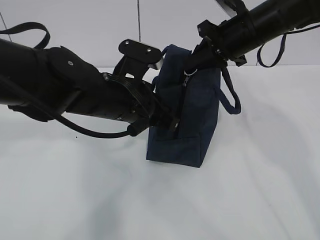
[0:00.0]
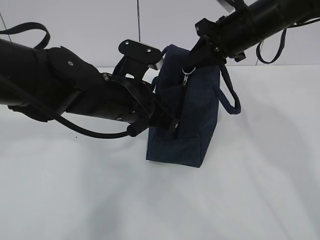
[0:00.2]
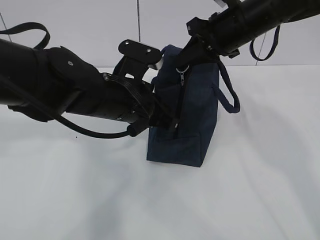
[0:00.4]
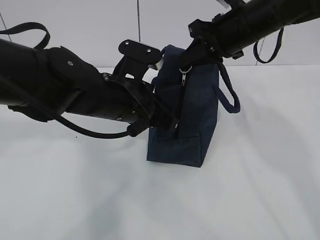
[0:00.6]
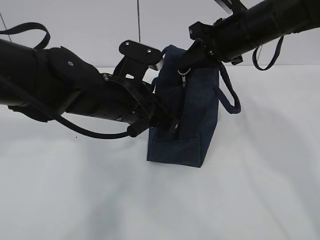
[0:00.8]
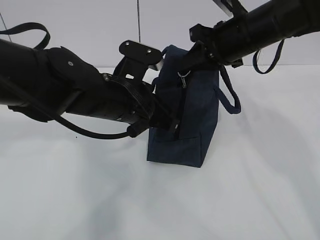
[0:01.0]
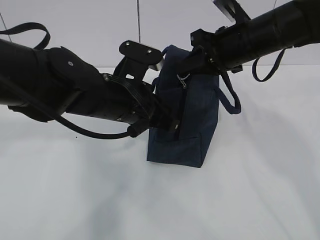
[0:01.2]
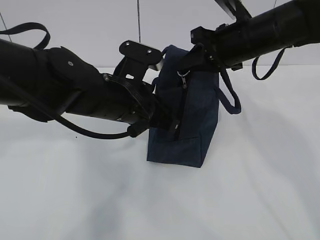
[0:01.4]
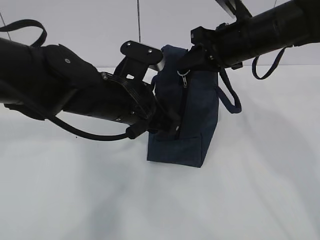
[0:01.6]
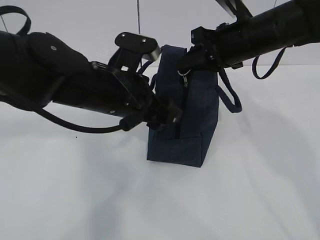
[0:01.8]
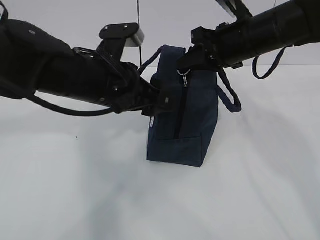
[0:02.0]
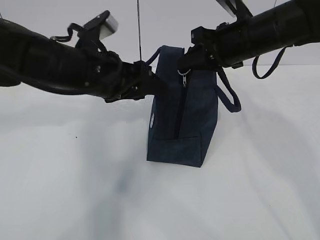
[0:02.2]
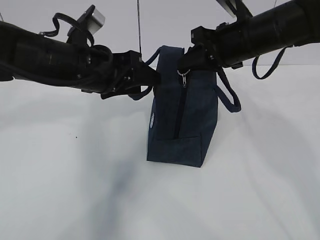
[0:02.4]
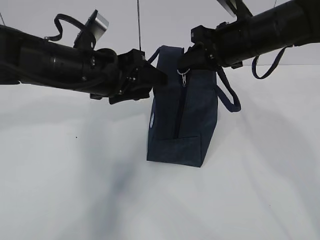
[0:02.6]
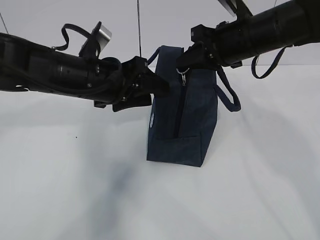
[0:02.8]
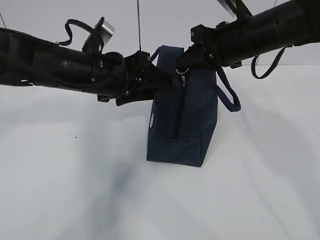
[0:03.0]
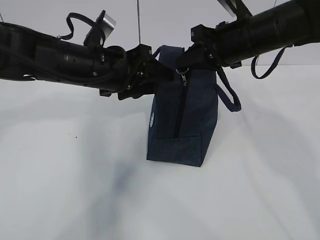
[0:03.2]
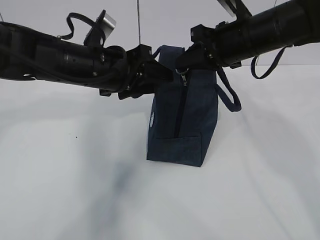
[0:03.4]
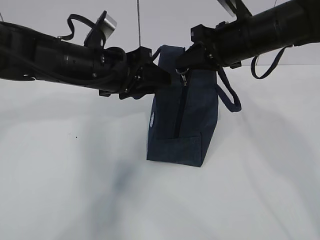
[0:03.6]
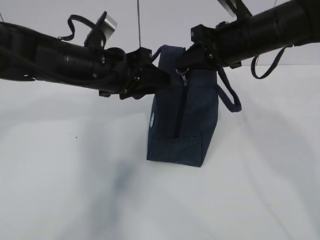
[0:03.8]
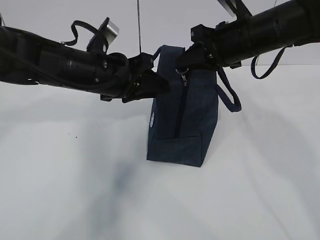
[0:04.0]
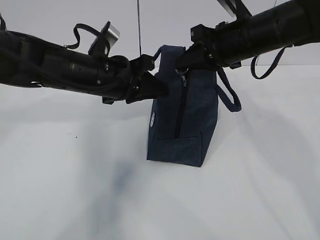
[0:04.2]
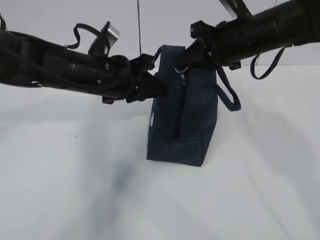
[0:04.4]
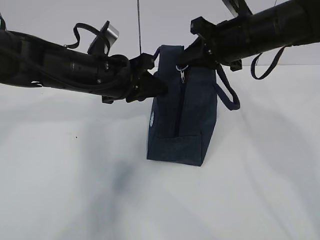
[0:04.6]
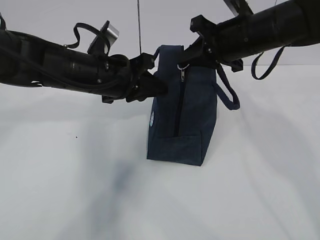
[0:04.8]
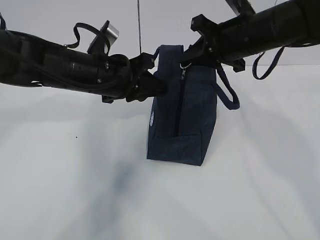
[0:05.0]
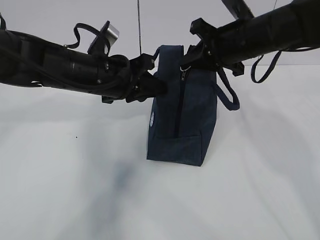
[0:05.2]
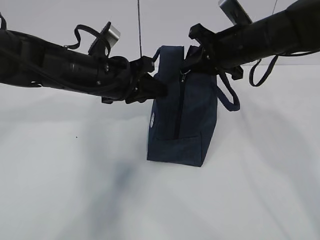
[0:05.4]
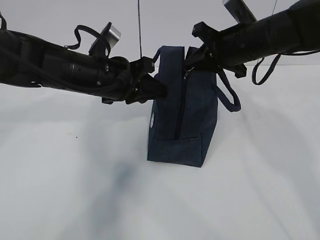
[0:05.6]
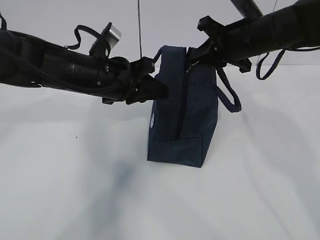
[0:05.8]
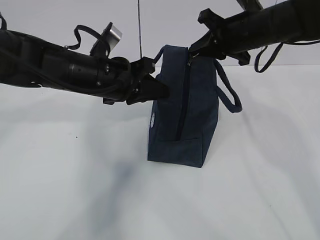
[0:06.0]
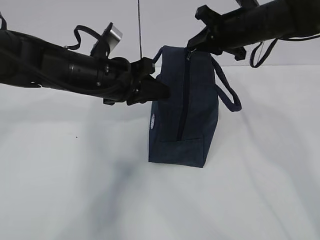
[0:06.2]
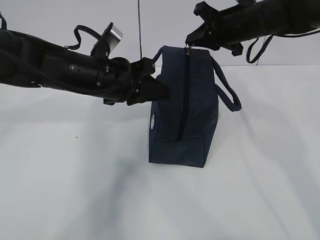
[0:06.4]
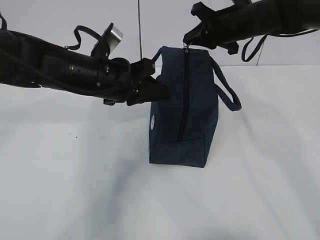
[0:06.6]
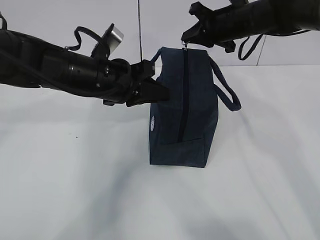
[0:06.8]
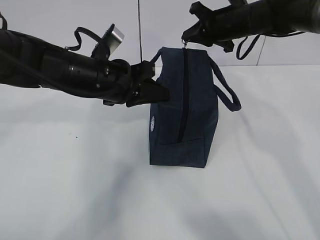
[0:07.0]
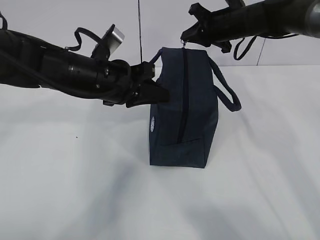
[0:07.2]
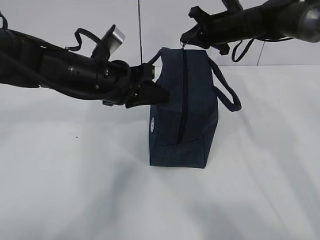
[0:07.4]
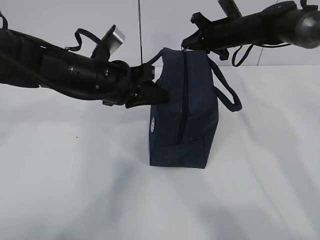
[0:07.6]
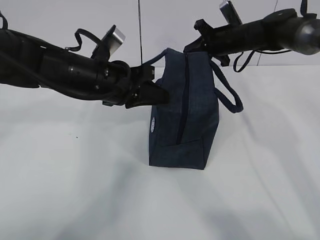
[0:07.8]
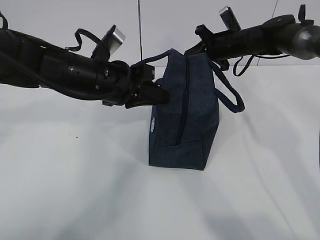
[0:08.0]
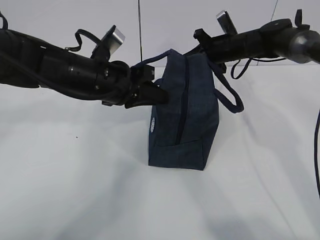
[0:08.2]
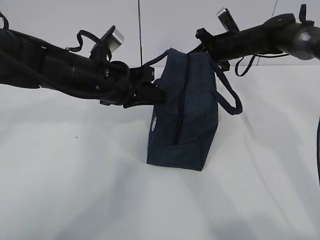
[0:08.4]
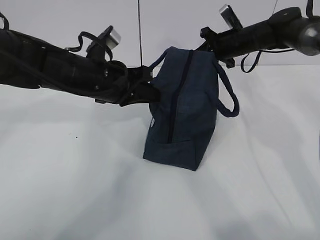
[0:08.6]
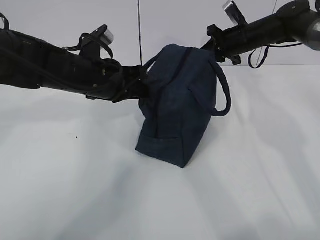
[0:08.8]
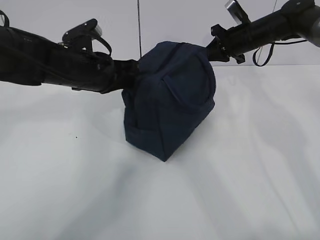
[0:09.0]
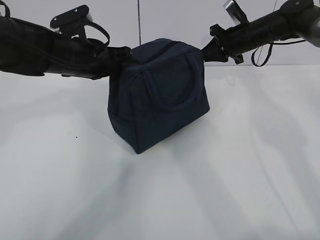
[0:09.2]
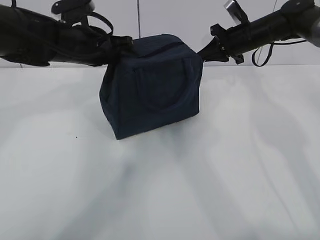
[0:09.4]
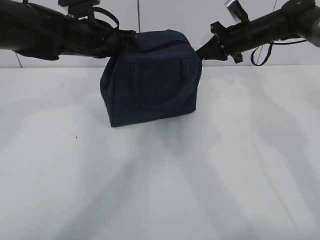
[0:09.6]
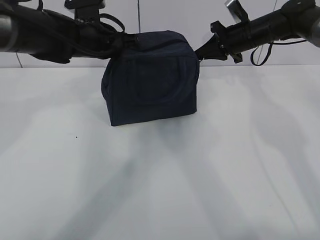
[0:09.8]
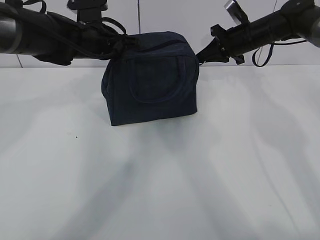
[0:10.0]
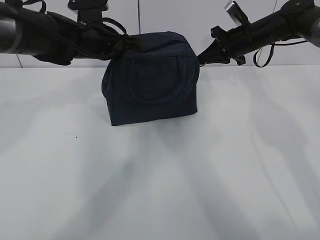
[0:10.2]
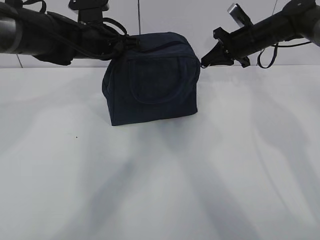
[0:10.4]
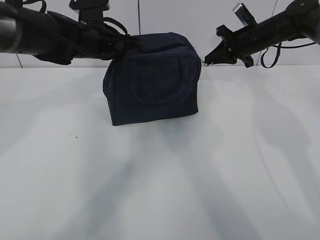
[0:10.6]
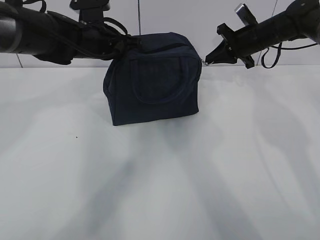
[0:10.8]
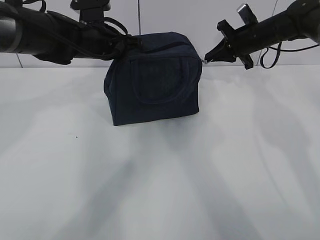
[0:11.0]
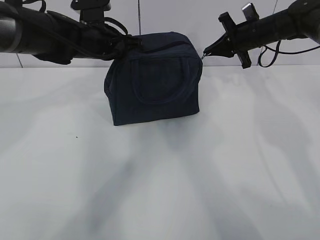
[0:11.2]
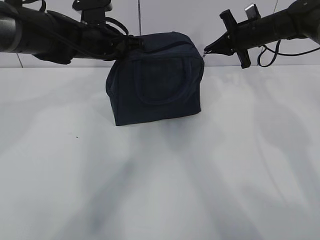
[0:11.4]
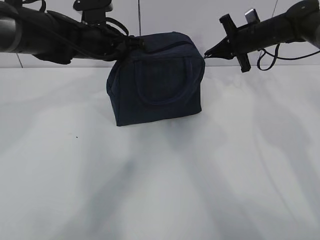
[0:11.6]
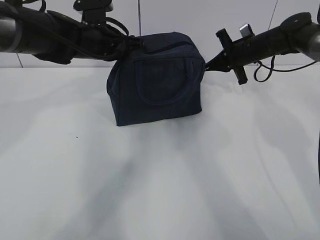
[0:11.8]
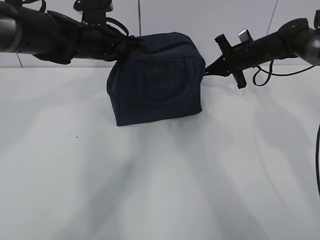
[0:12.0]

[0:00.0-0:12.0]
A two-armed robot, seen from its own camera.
0:00.0 to 0:01.6: The left gripper opens its fingers.
0:01.6 to 0:03.0: The left gripper ends up roughly 5 cm from where it was.
0:03.0 to 0:04.4: The left gripper closes.
0:04.4 to 0:06.0: The right gripper ends up roughly 5 cm from where it was.
0:06.0 to 0:07.6: The right gripper goes approximately 10 cm forward and downward.
0:07.6 to 0:09.0: The left gripper moves approximately 5 cm.
0:09.0 to 0:10.4: The left gripper heads forward, covering some 10 cm.

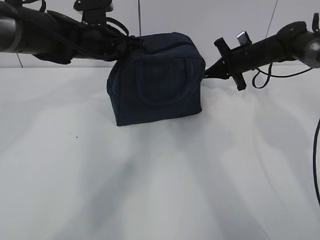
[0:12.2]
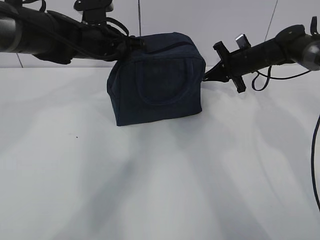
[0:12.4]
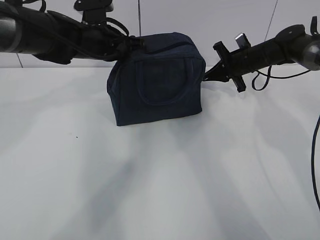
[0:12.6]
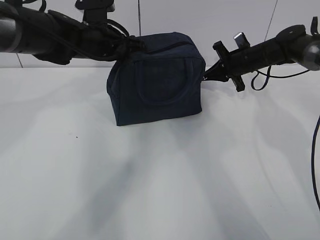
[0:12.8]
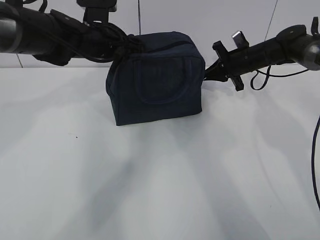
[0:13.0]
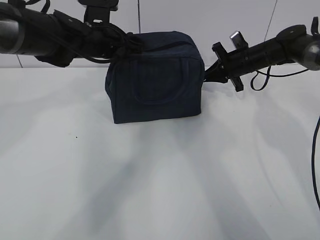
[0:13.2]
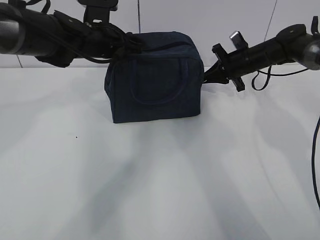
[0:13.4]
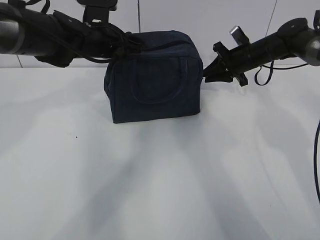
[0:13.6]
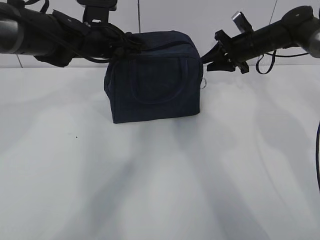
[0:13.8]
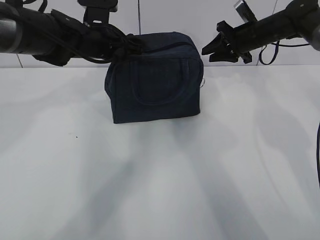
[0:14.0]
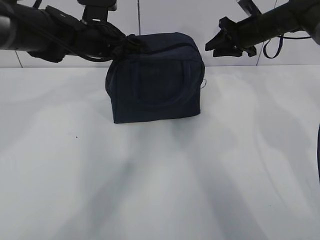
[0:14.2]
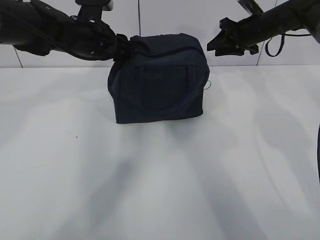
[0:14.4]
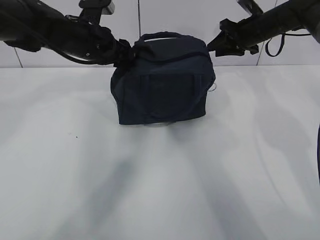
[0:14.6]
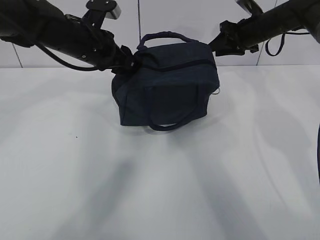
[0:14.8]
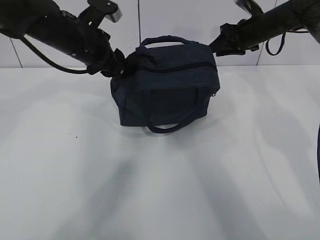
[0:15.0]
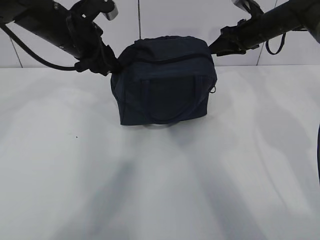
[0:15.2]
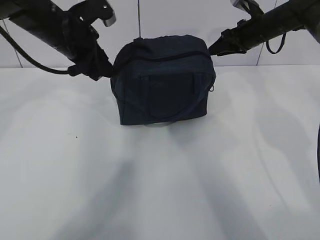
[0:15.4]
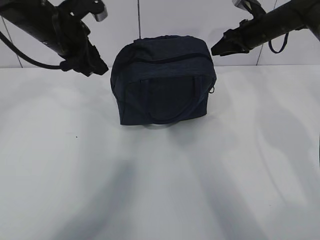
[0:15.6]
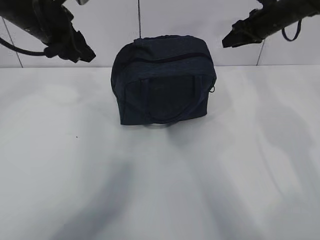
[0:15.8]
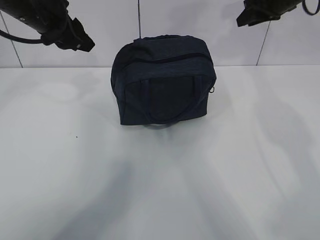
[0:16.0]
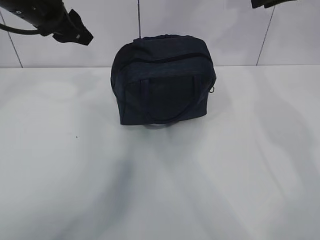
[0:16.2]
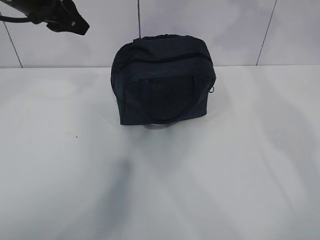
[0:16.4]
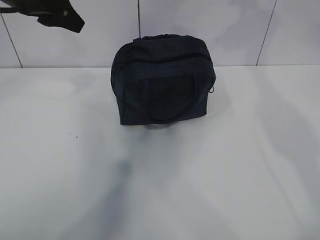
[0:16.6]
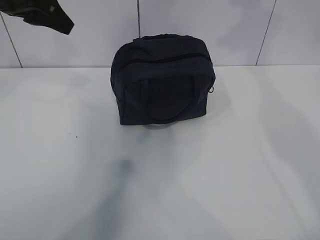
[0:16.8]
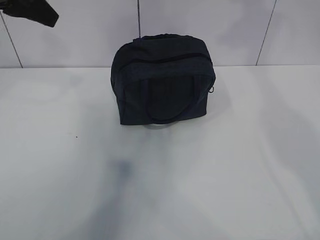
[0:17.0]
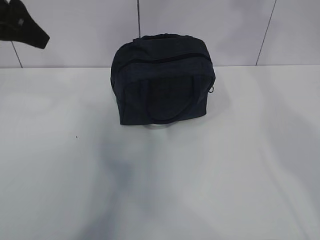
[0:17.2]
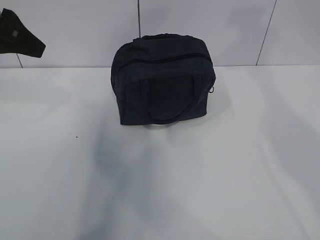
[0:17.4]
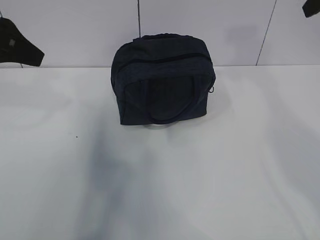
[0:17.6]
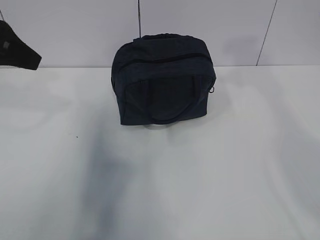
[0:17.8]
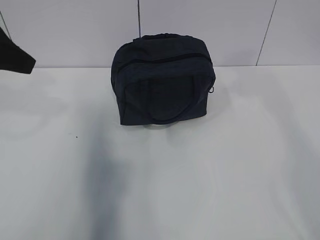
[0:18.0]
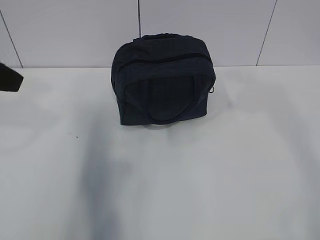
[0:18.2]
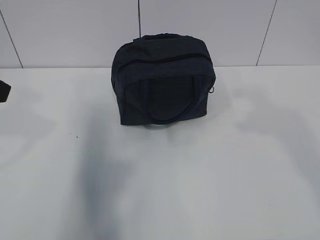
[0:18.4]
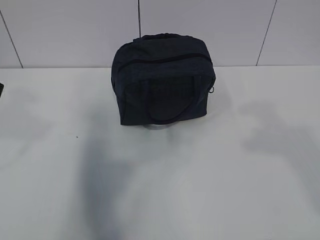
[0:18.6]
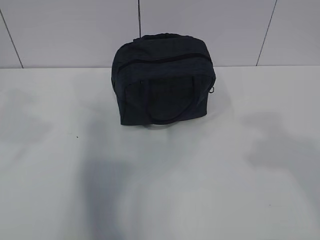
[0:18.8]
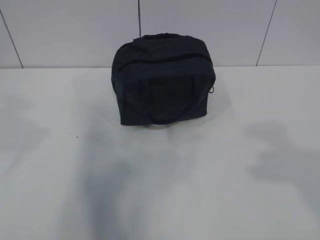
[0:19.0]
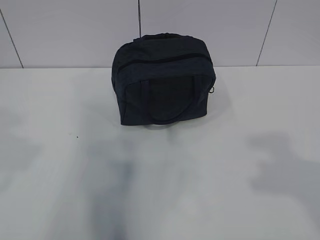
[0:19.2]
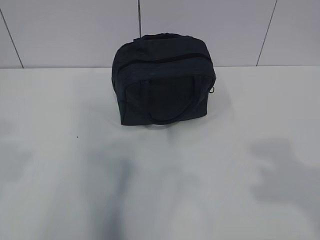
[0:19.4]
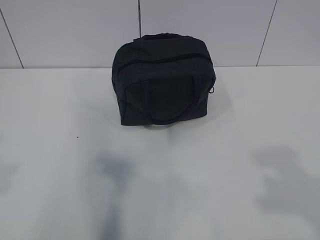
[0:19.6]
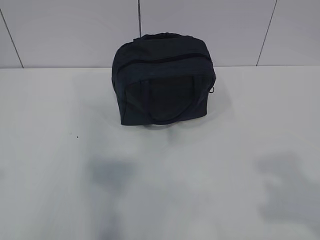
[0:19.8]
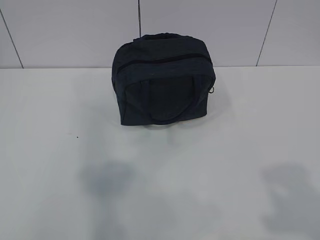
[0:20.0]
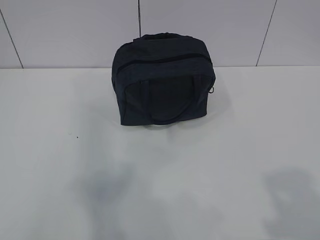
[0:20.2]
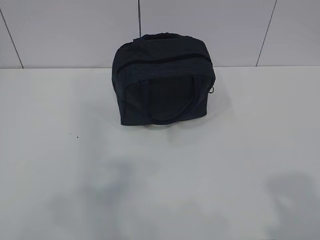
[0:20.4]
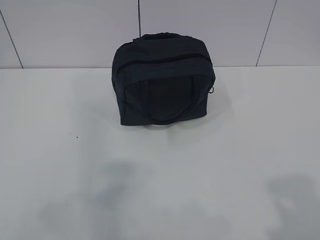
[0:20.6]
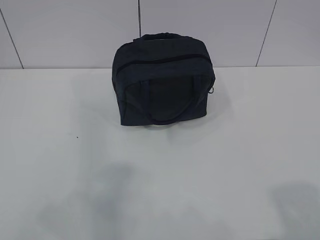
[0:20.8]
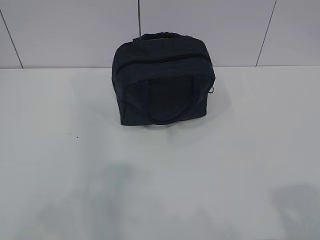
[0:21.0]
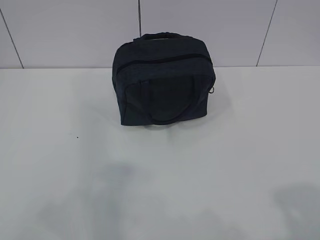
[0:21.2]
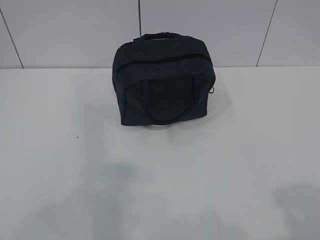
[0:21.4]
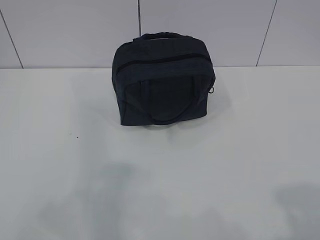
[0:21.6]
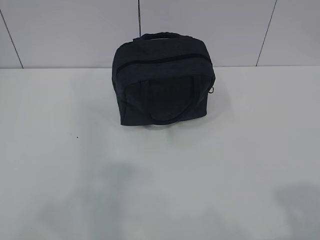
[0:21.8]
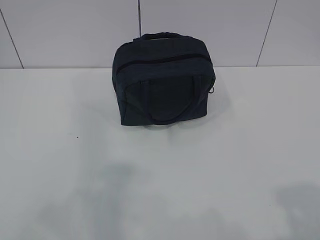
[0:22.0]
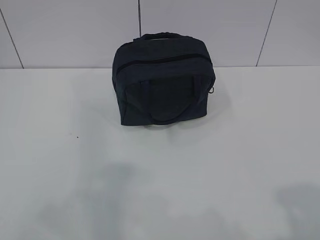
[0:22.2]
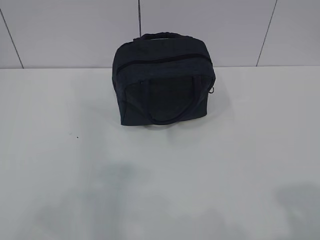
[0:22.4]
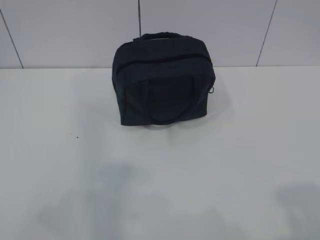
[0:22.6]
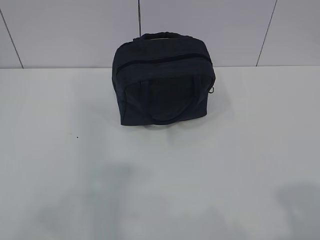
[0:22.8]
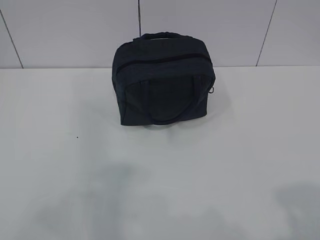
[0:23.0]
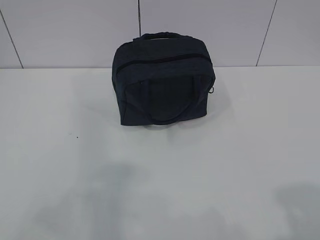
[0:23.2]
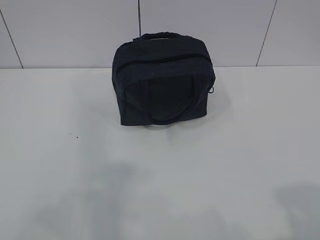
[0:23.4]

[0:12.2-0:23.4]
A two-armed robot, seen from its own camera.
0:12.2 to 0:13.8: The right gripper opens its fingers.
0:13.8 to 0:15.4: The left gripper moves some 5 cm, and opens up.
0:15.4 to 0:17.0: The left gripper is displaced upward, backward and to the left by some 15 cm; the right gripper travels upward and backward by about 30 cm.
0:17.0 to 0:18.6: The left gripper heads backward, covering some 15 cm.
0:18.6 to 0:20.2: The left gripper moves backward, some 15 cm, while the right gripper heads backward and downward, covering about 15 cm.
0:21.8 to 0:23.4: Both grippers stay about where they are.
